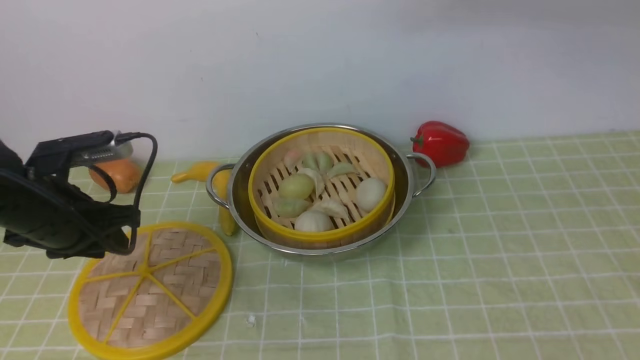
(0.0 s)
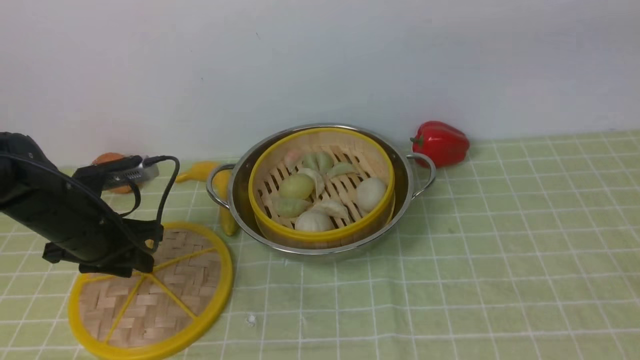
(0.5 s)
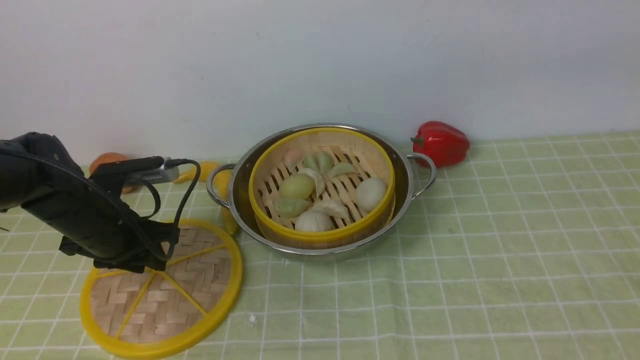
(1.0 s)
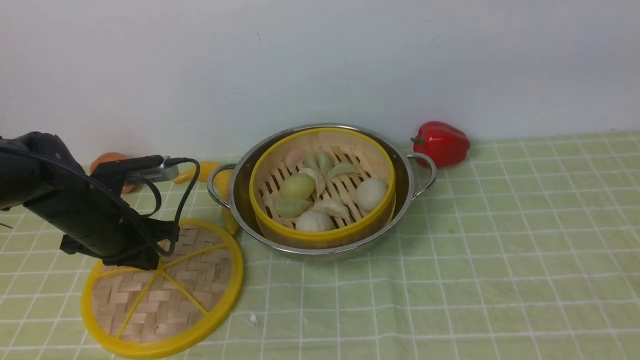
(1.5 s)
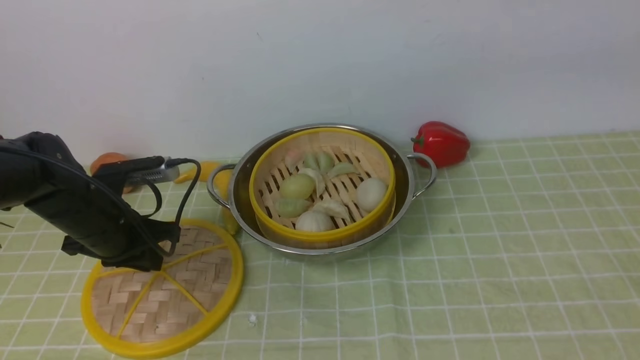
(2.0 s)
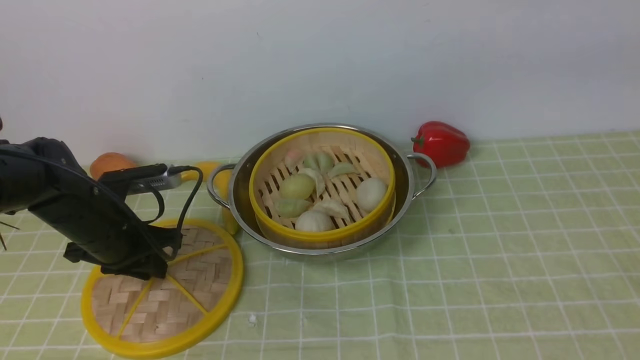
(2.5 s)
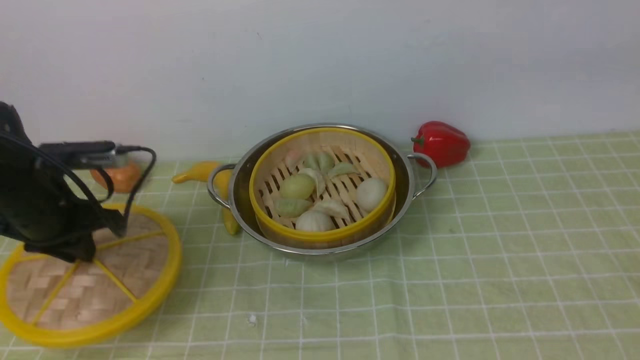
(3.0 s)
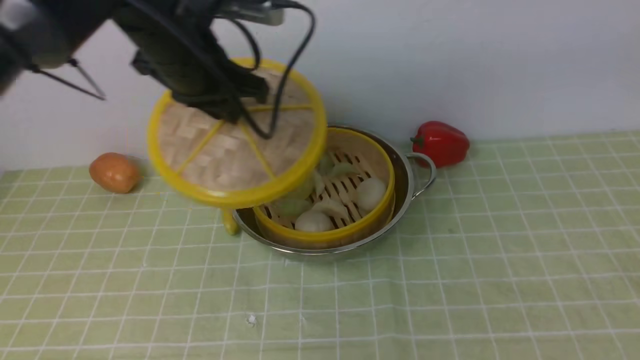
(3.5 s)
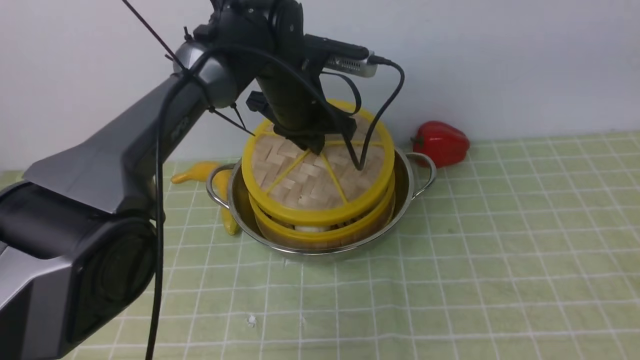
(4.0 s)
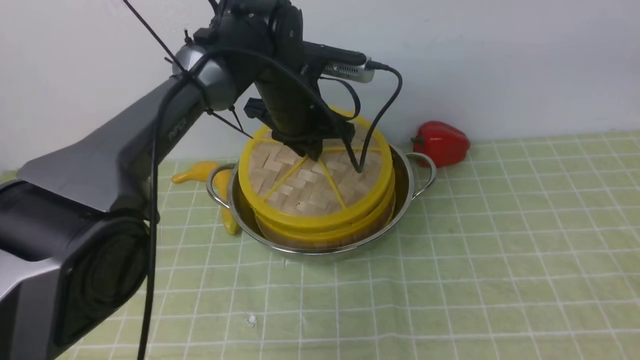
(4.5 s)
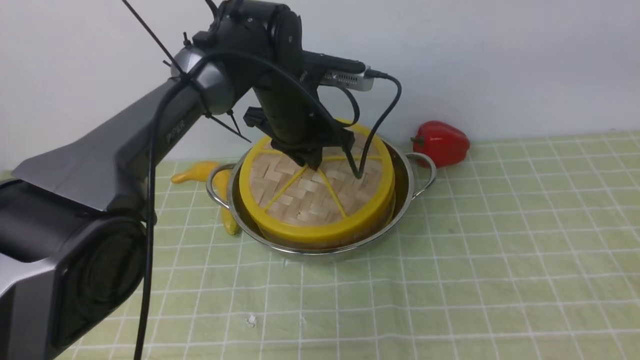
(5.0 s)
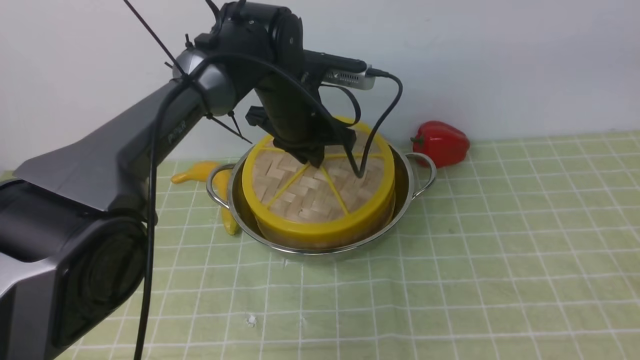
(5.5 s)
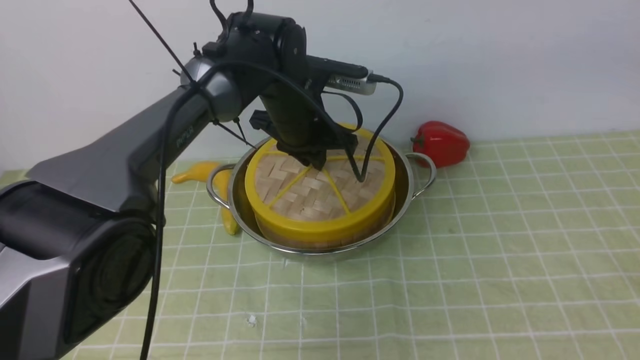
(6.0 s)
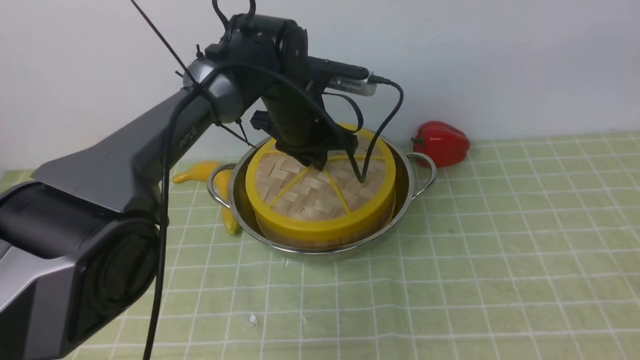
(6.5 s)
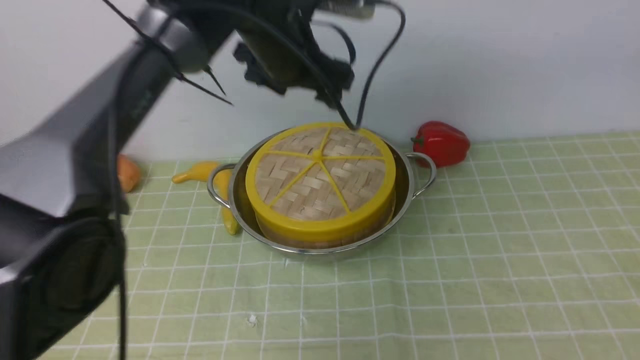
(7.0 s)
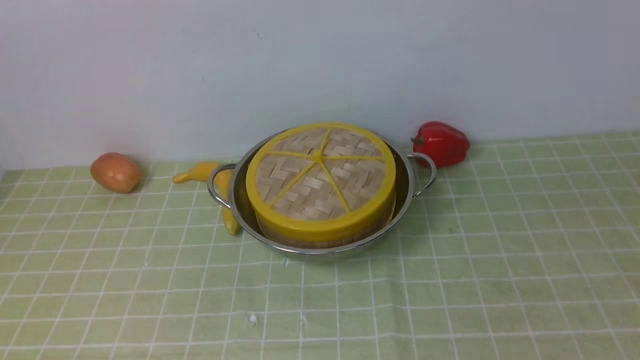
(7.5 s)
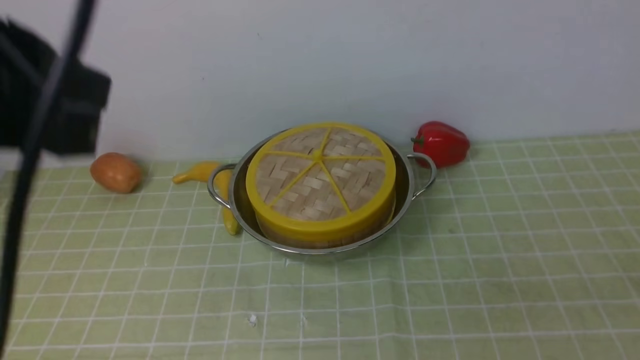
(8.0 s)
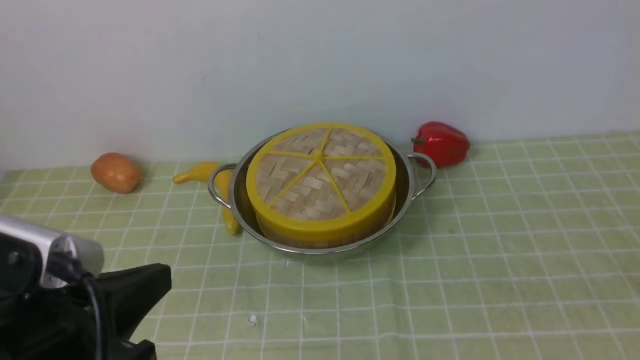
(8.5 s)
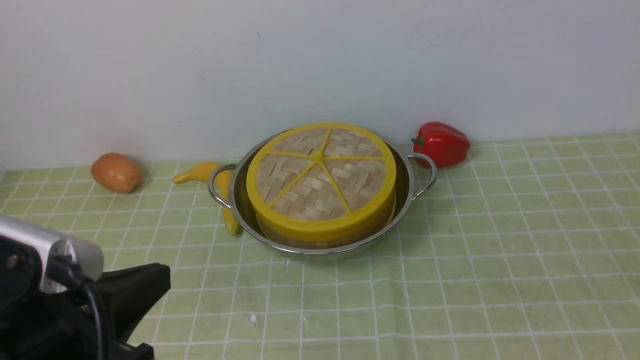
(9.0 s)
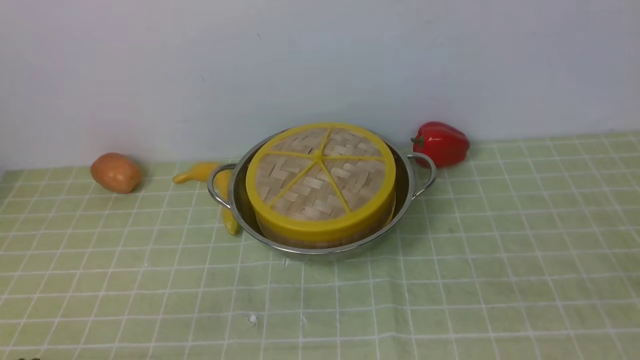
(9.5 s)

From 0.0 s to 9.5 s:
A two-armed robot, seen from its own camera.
Task of the whole recording: place the steamer in the pot on the green tablecloth, and put the lid on the steamer.
Step, from 0.0 s to 3.0 s: use the left arm to lift the lid of the steamer.
Step, from 3.5 s to 7.0 s: use the left arm to place the steamer lid on the steamer.
From 0.0 s to 2.0 s: The left gripper heads downward and forward, covering some 10 cm, and closes its fingers.
From 2.0 s to 4.0 s: The left gripper is displaced to the right, upward and forward by about 25 cm.
From 4.0 s to 5.5 s: The grippers move only a little.
From 5.5 s to 7.5 s: The right gripper moves backward and downward, about 10 cm, and closes its fingers. Meanwhile the left gripper travels upward and backward by about 30 cm, and opens, then closes once more.

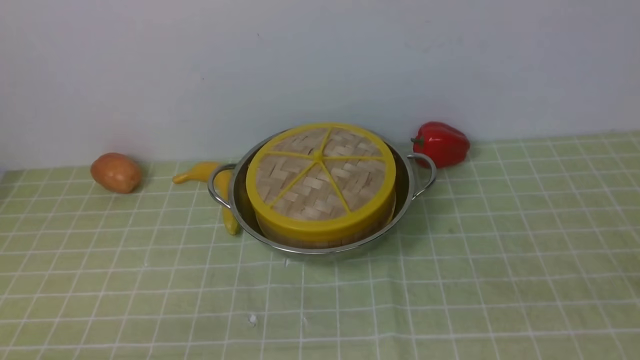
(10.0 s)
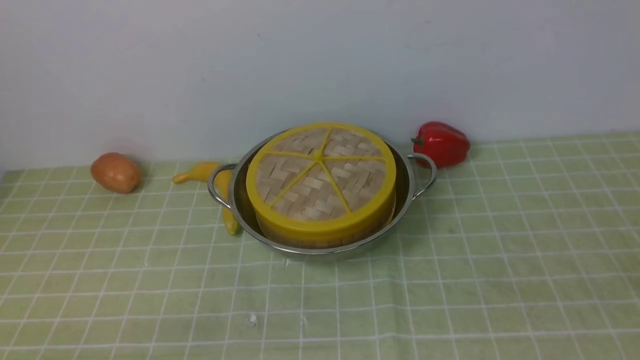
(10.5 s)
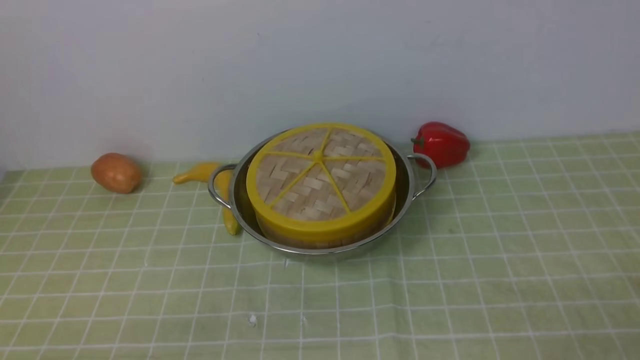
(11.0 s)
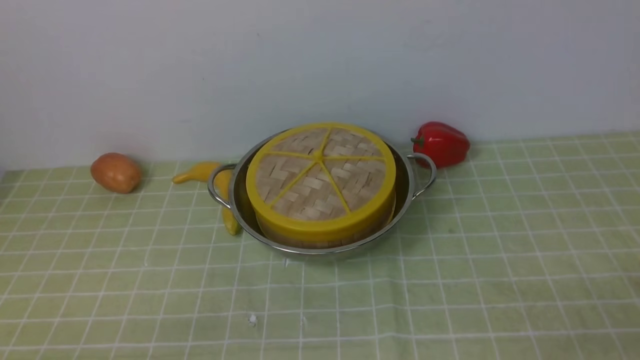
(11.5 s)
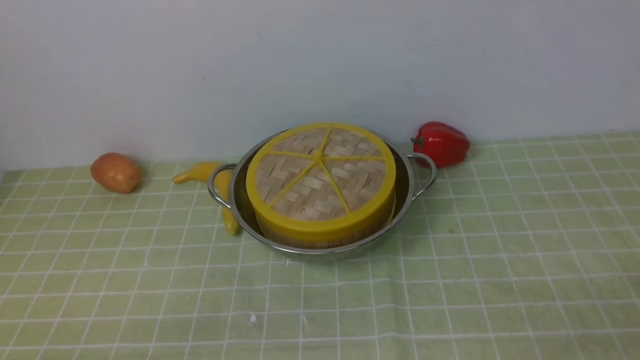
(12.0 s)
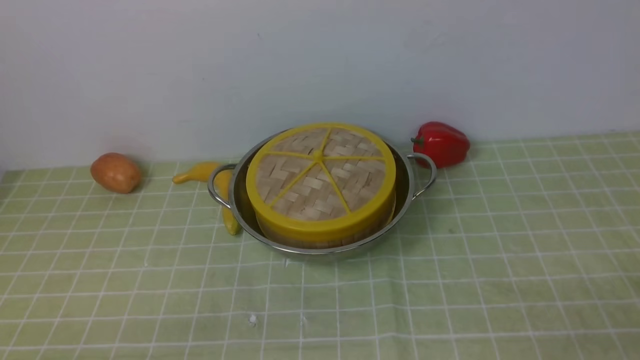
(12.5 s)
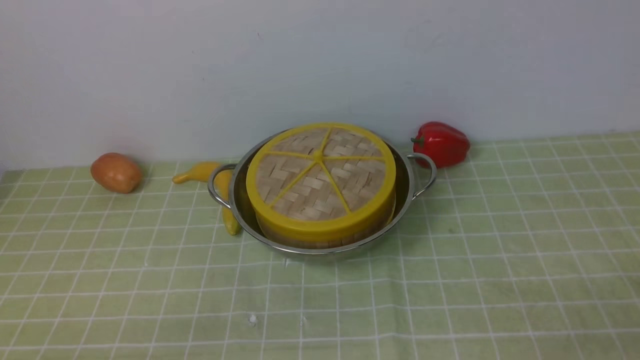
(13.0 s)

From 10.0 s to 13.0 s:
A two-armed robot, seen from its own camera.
Task of the whole recording: place the steamer in the pot on the green tablecloth, and put the lid on the steamer.
From 11.5 s to 13.0 s: Both grippers stay put.

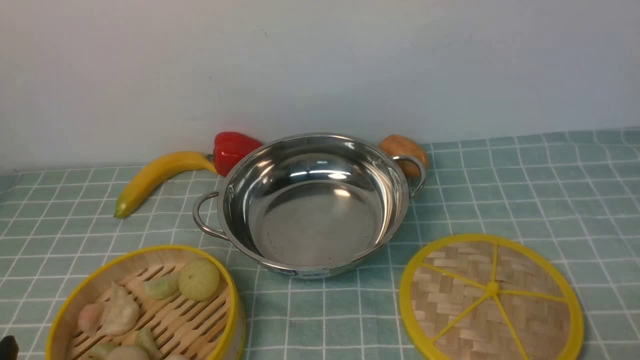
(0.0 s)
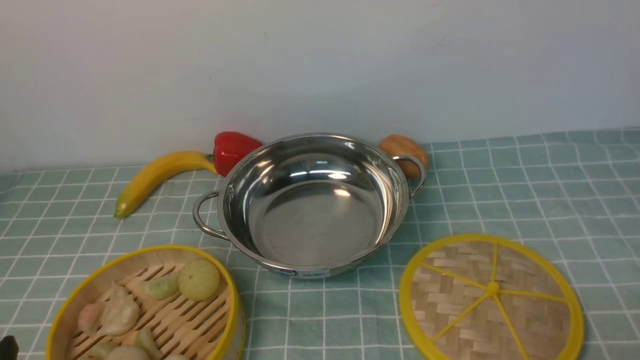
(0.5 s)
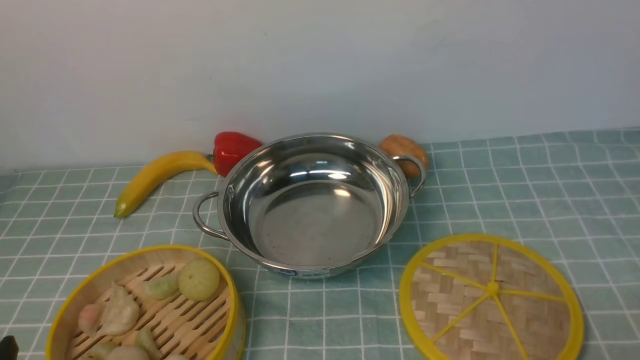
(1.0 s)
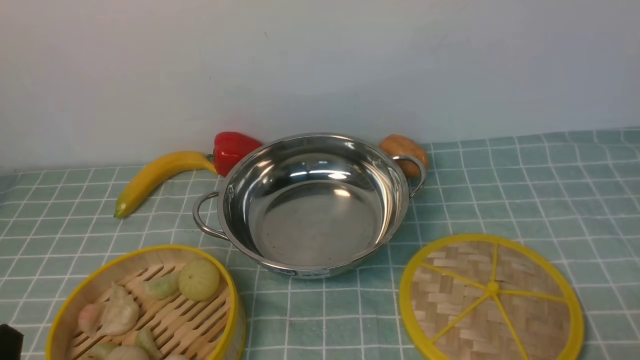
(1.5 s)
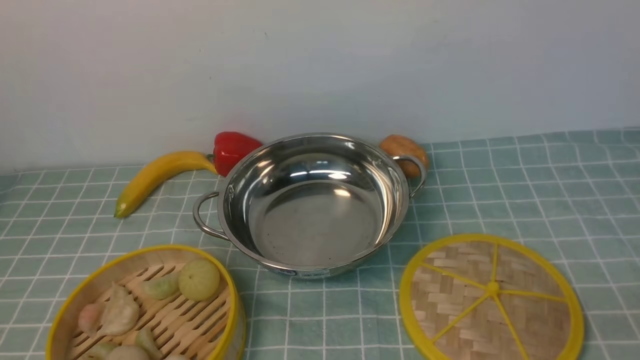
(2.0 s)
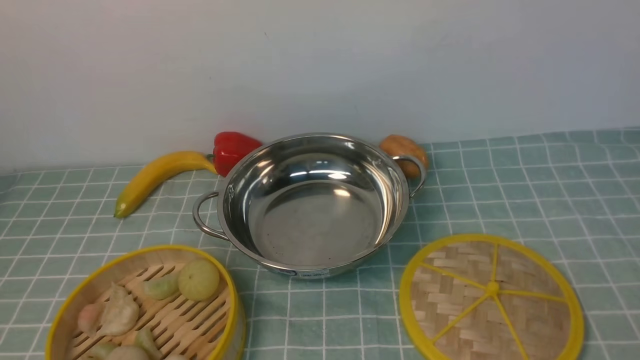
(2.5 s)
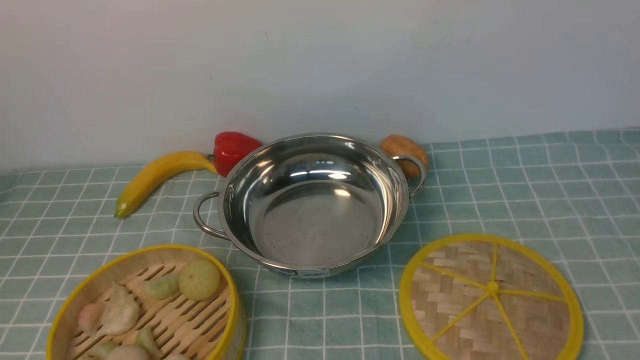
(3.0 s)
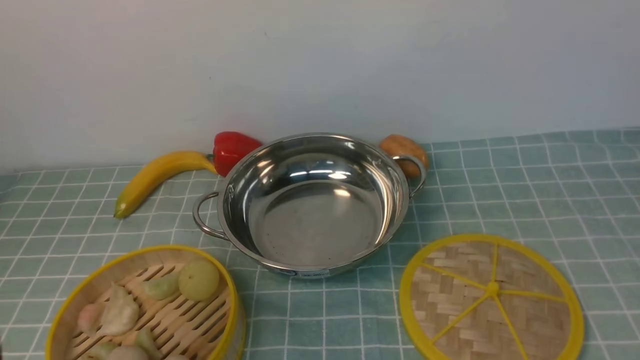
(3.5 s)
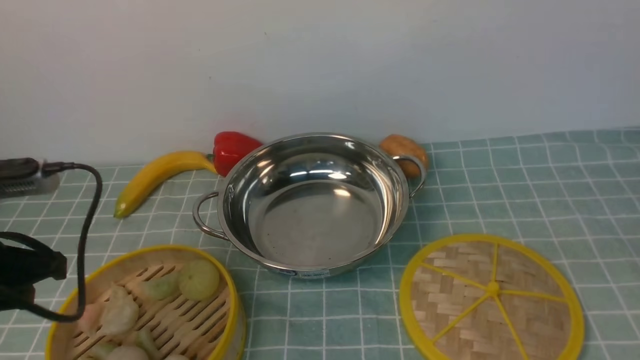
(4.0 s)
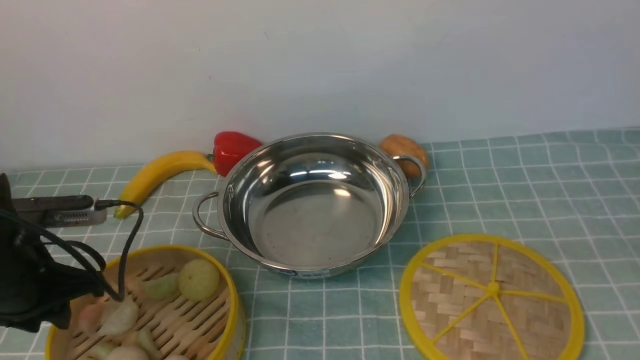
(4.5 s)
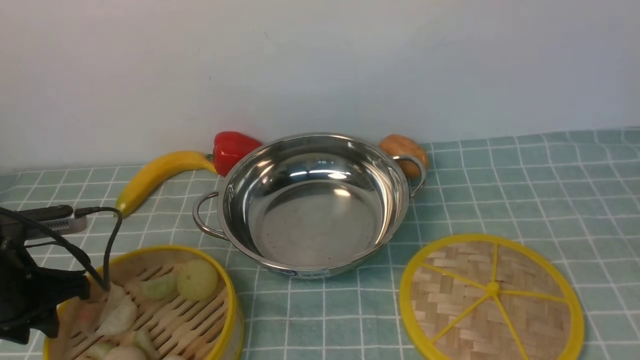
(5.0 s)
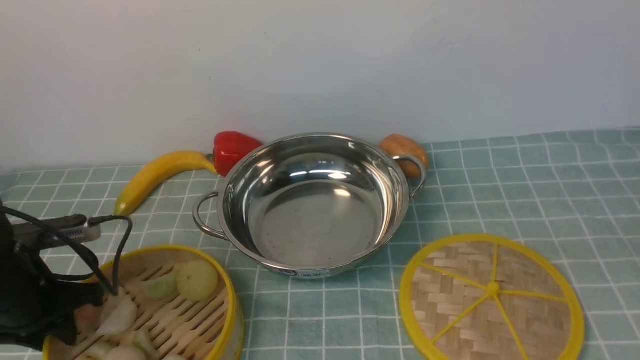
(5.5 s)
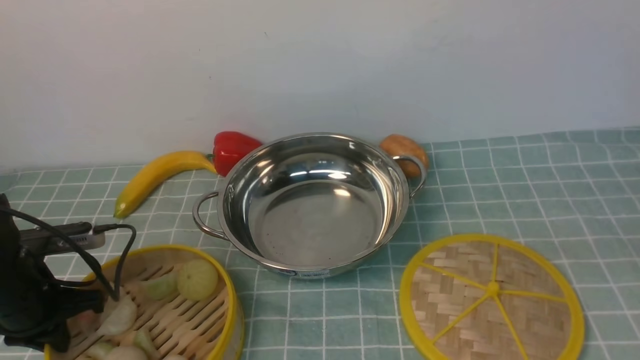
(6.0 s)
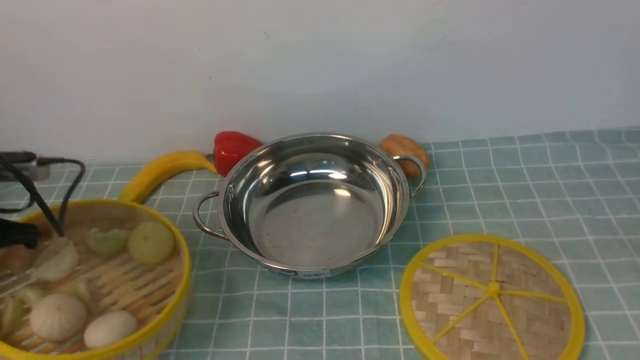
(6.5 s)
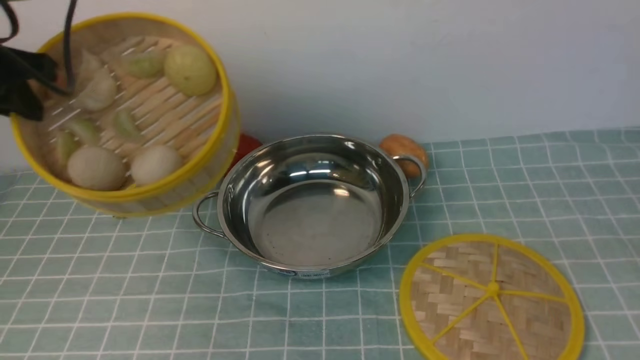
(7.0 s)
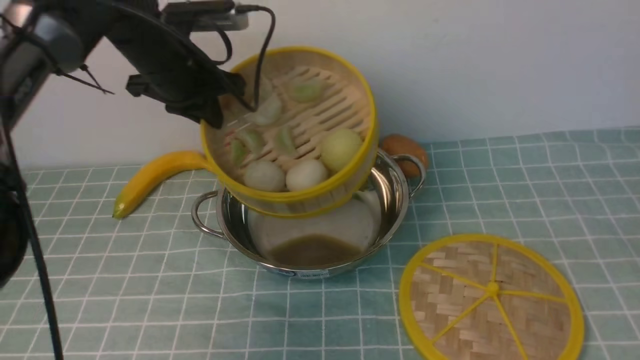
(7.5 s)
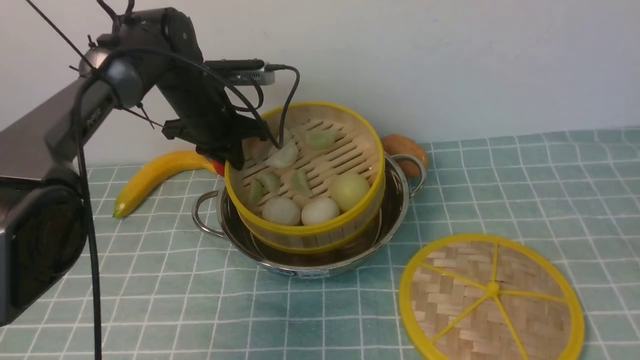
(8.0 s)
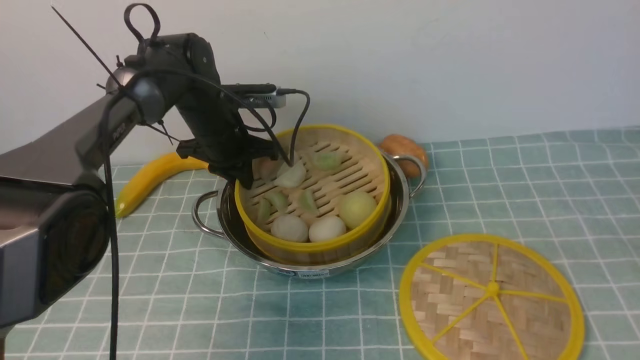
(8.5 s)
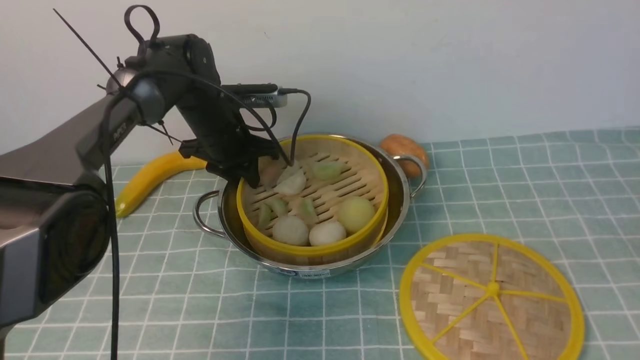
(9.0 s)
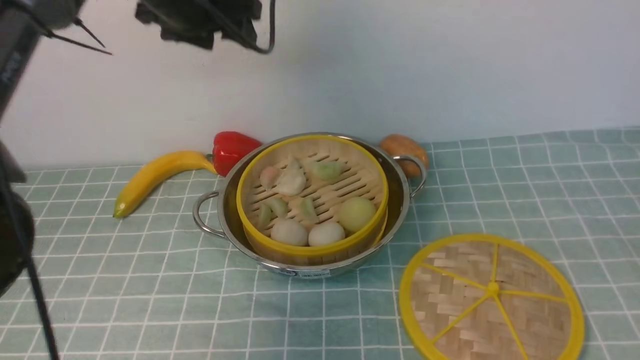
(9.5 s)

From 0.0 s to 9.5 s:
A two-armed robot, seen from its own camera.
Task of the whole recording: place the steamer in the pot on the blue tablecloth, and put the lid on the steamer.
Step, from 0.0 s to 6.5 s: use the left arm to lift the steamer closest to it.
Step, from 7.0 s to 9.0 s: use the left arm to put the steamer into the iron steamer pot in the middle.
From 2.0 s to 4.0 s: The left gripper moves forward, about 15 cm.
From 4.0 s to 5.5 s: The left gripper goes some 10 cm downward and forward.
From 5.5 s to 7.5 s: The left gripper heads forward, to the right and upward, covering some 25 cm, and closes up.
From 7.5 s to 9.5 s: The left gripper travels upward by about 10 cm, and opens.
